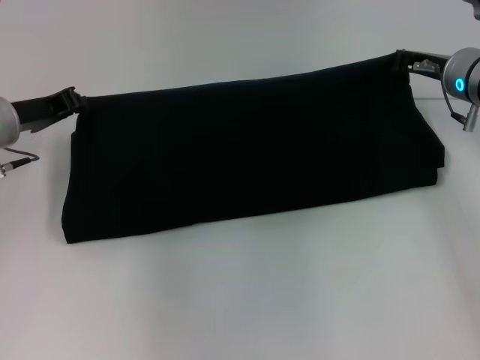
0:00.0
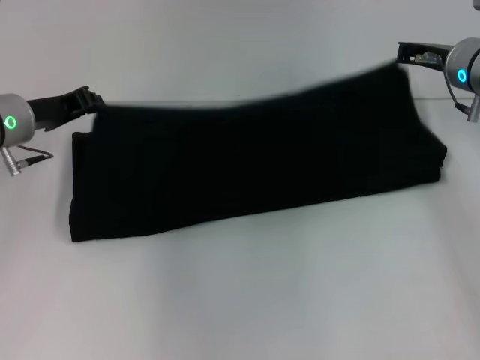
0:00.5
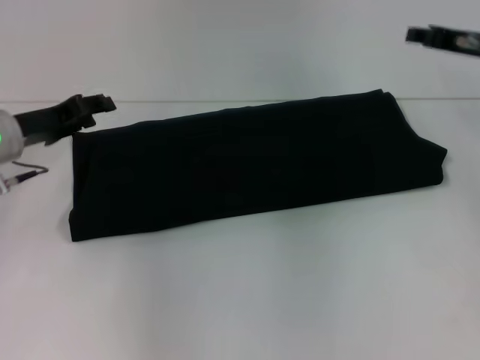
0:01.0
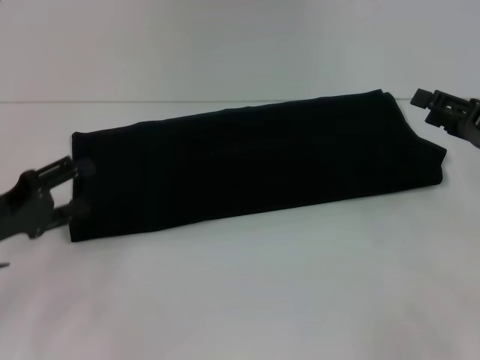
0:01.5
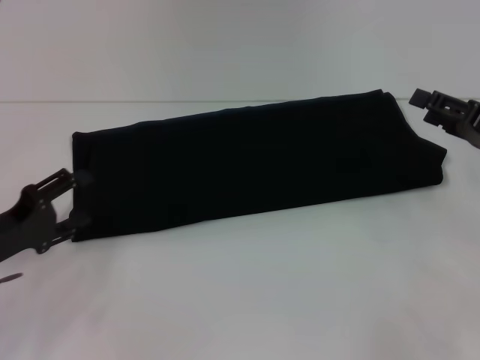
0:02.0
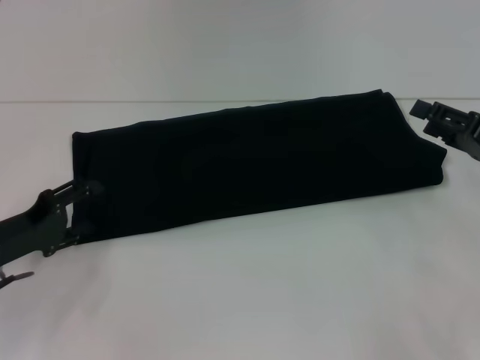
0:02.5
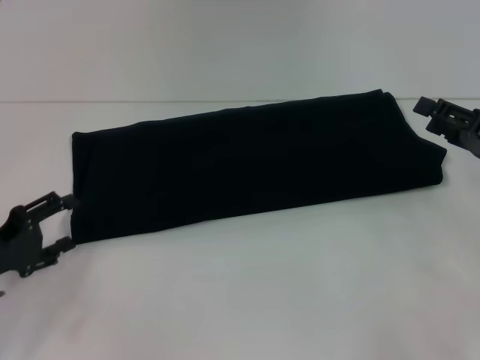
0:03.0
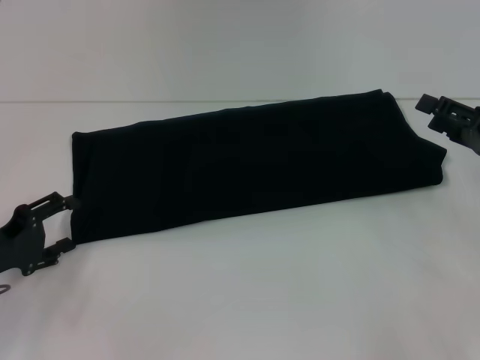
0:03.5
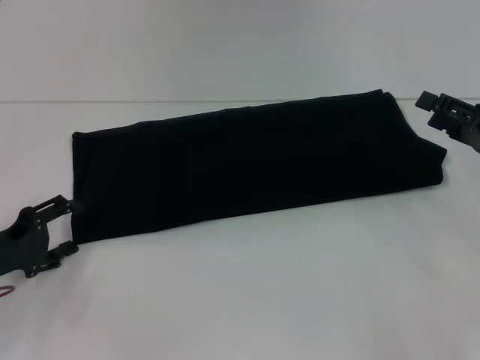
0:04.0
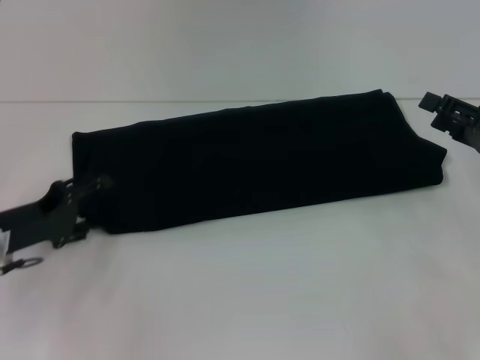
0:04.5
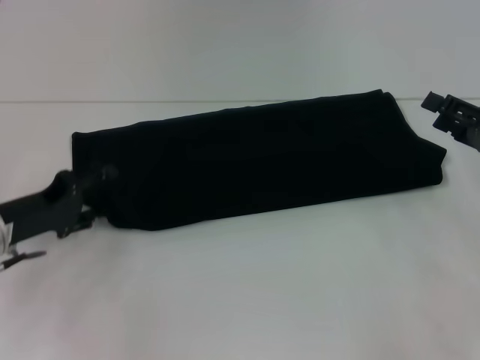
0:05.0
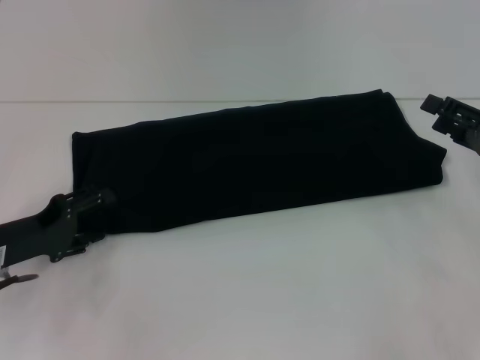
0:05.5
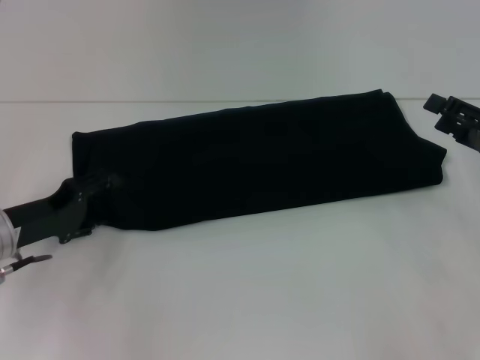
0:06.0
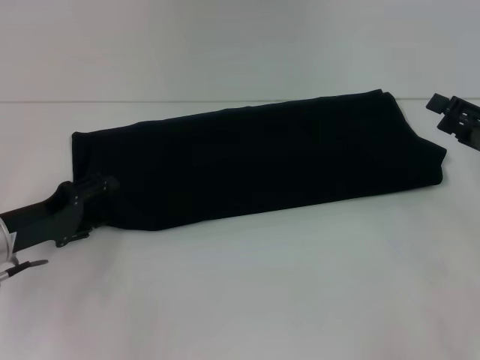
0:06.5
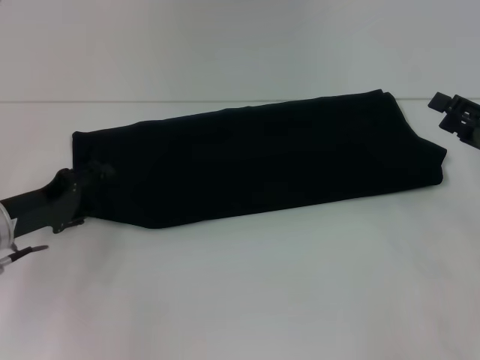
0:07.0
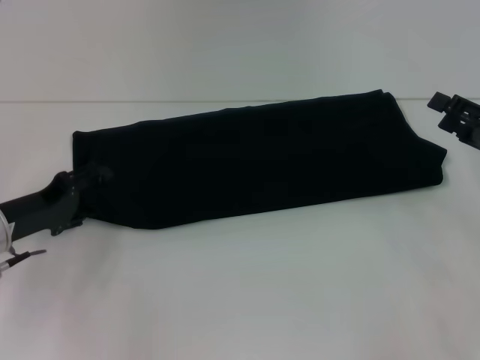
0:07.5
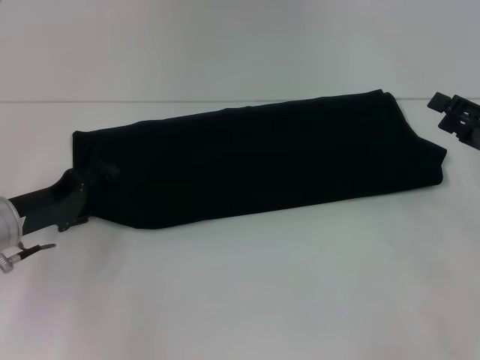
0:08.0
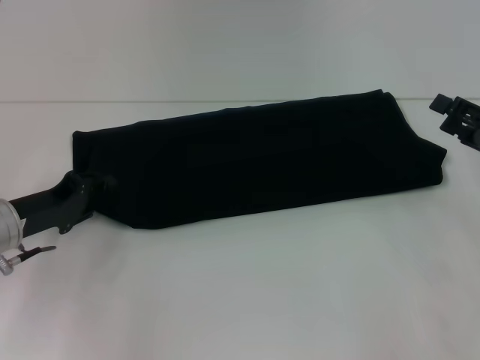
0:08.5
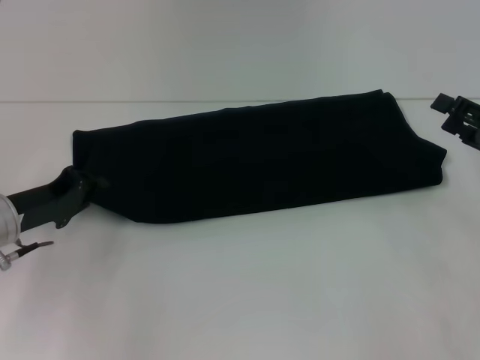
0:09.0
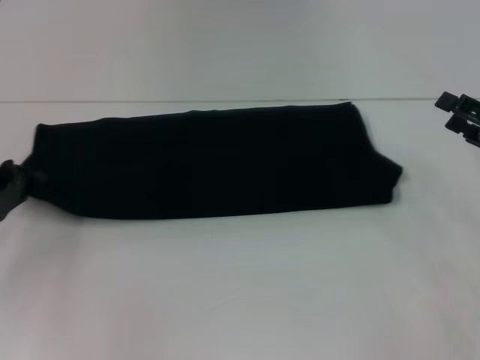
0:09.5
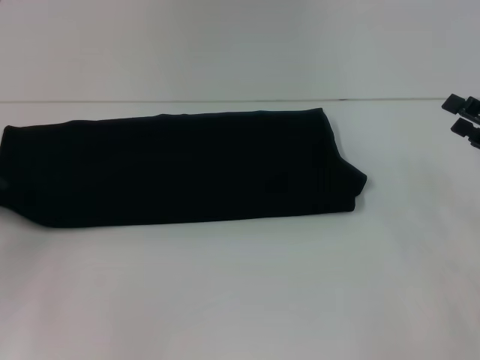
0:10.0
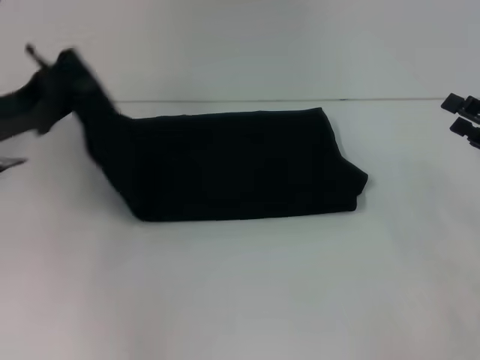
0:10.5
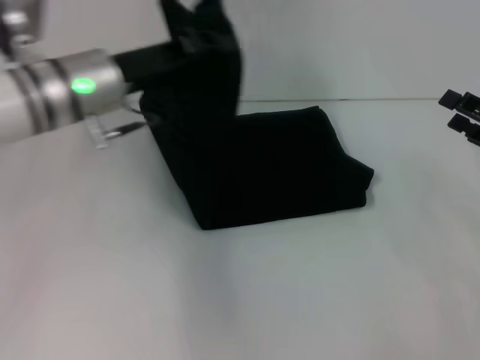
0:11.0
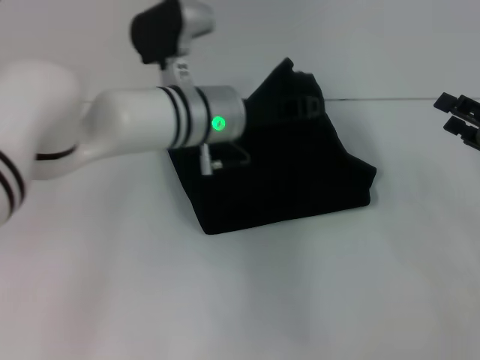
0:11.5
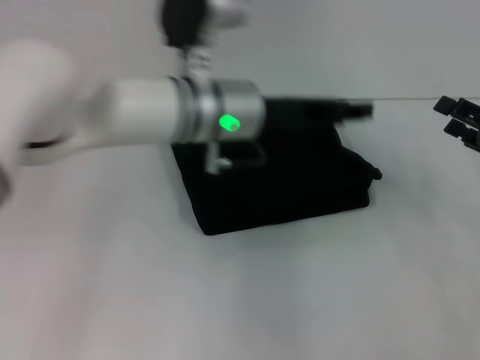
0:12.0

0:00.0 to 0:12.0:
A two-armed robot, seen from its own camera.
Step, 0:00.0 to 0:12.0: Fold the clothes with your left hand.
0:00.0 to 0:02.0: The right gripper is displaced backward and to the right by about 15 cm, and opens its fingers. Meanwhile the left gripper heads backward and downward, covering approximately 15 cm, and opens its fingers.
0:02.0 to 0:04.0: The grippers stay close to where they were, moving slightly.
0:04.0 to 0:06.0: The left gripper changes place by roughly 5 cm.
0:06.0 to 0:08.0: The grippers stay close to where they were, moving slightly.
0:08.0 to 0:10.0: The left gripper goes approximately 10 cm to the left, and closes its fingers.
0:10.0 to 0:12.0: The left gripper heads to the right, covering roughly 35 cm.

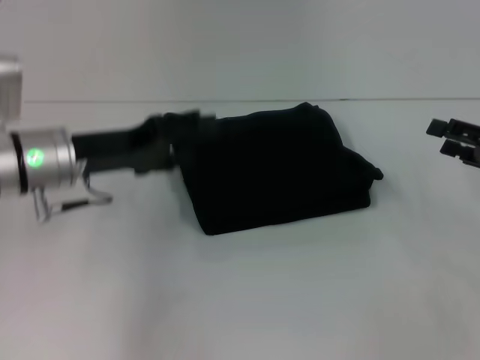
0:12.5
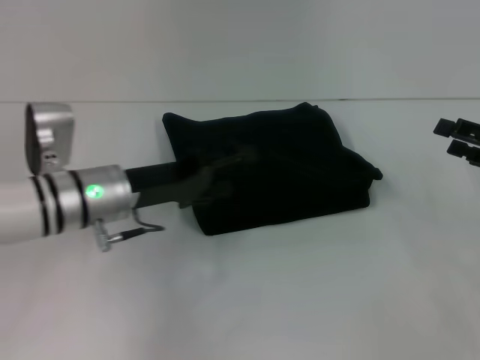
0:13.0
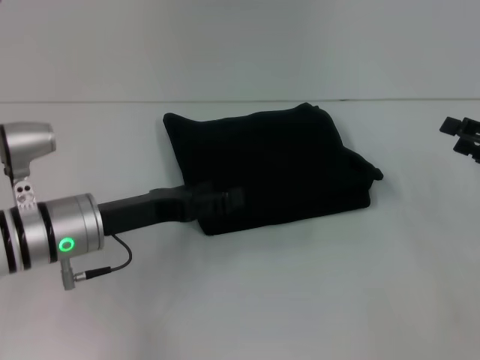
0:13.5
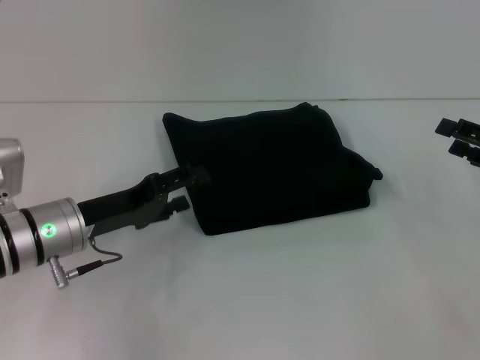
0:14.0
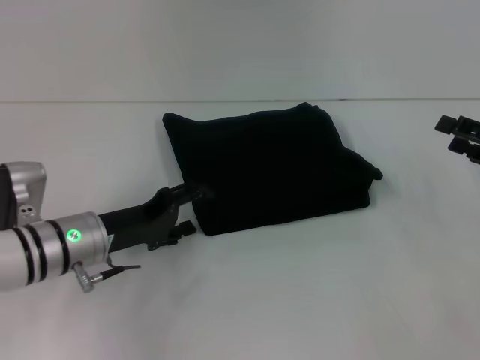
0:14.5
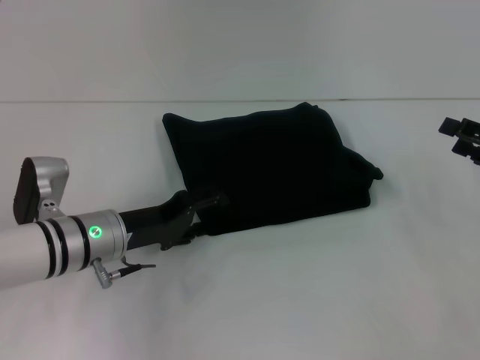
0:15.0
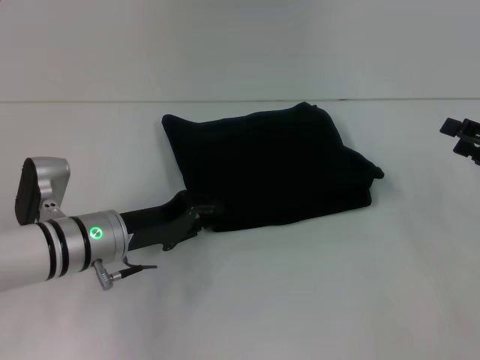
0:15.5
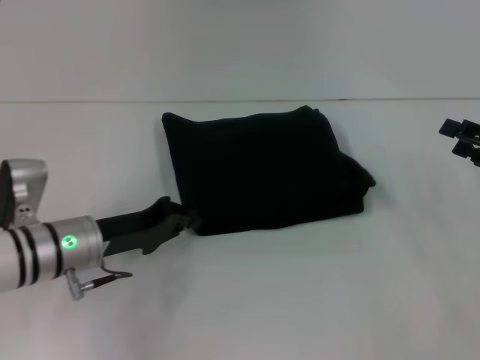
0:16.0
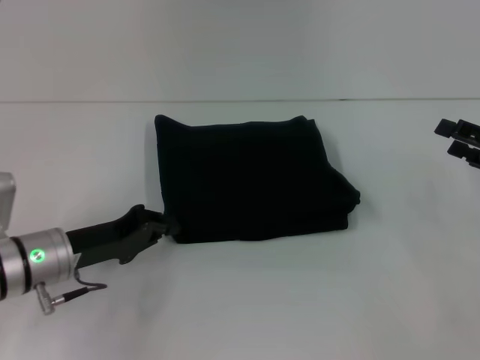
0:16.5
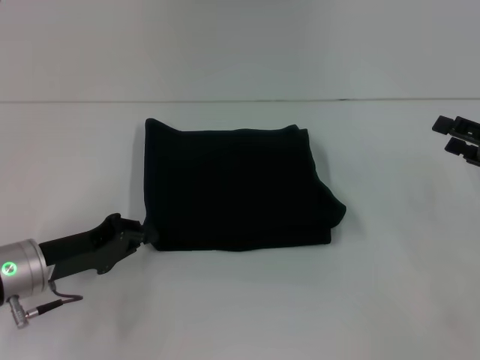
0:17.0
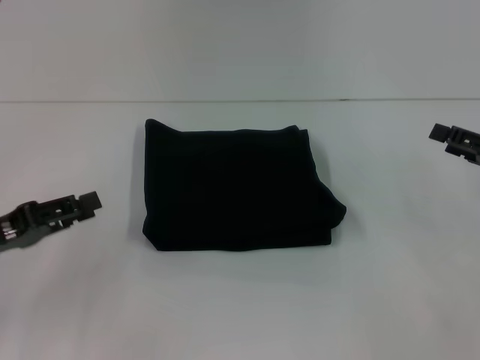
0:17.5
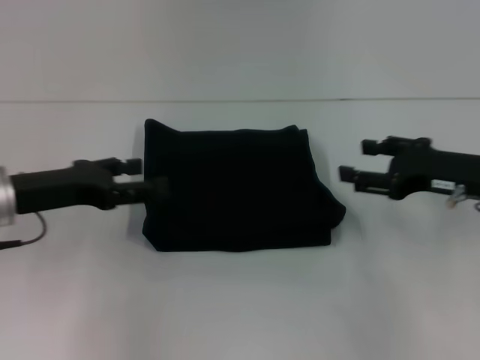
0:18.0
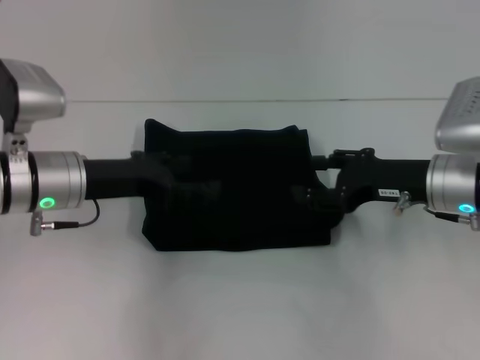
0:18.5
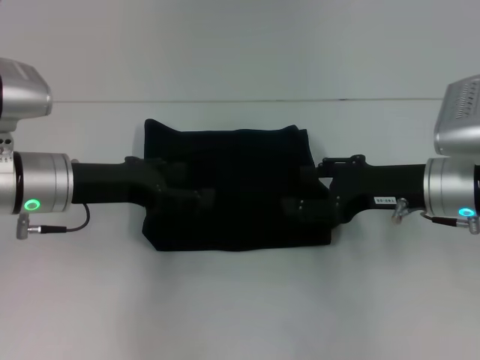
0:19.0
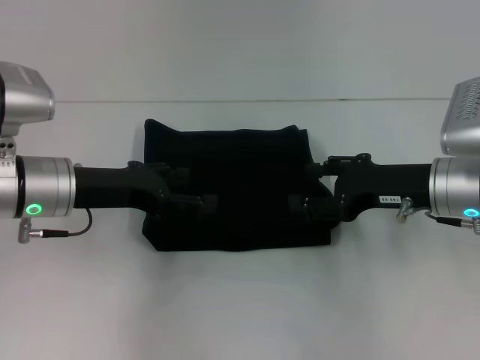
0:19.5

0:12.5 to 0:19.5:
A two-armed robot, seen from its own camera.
0:12.5 to 0:14.5: The left gripper moves downward, roughly 10 cm.
0:14.5 to 0:16.0: The left gripper closes.
0:16.0 to 0:17.5: The left gripper goes about 15 cm to the left and backward.
0:17.5 to 0:19.5: The left gripper shifts about 15 cm to the right and forward, and opens; the right gripper travels to the left by some 15 cm.

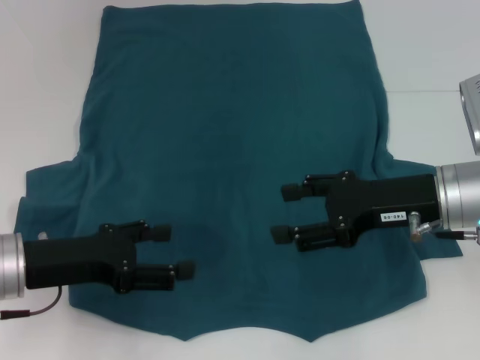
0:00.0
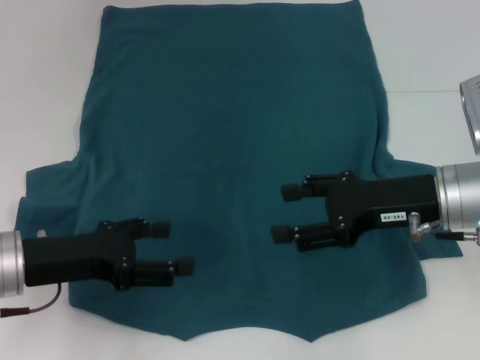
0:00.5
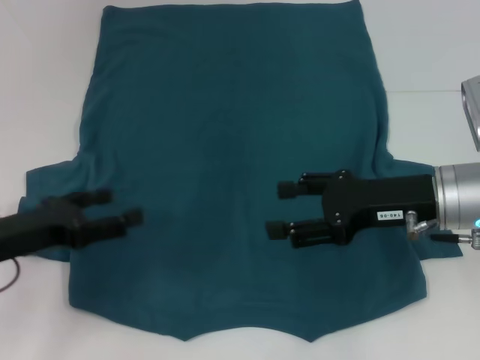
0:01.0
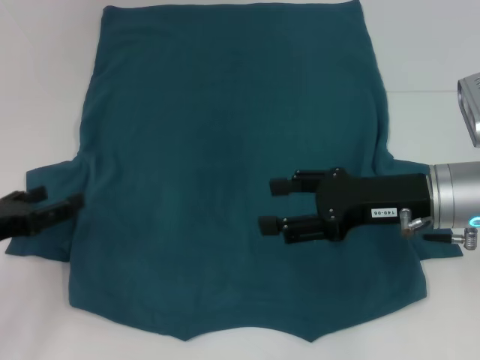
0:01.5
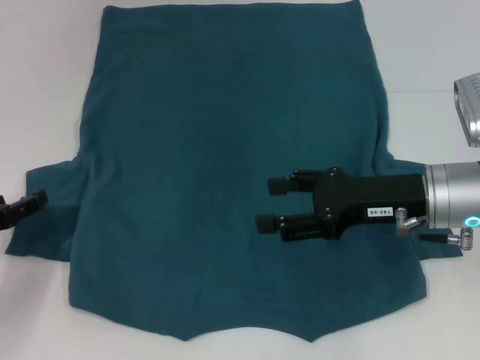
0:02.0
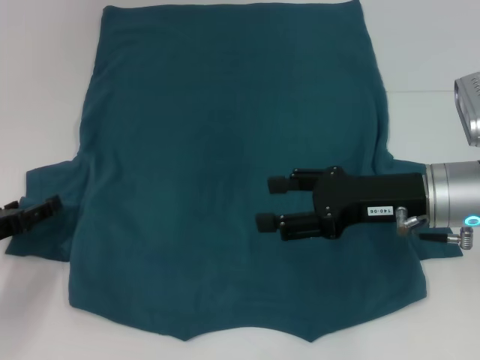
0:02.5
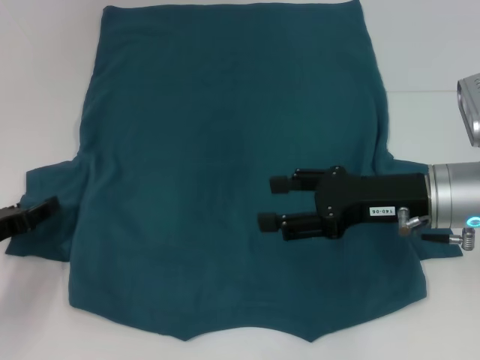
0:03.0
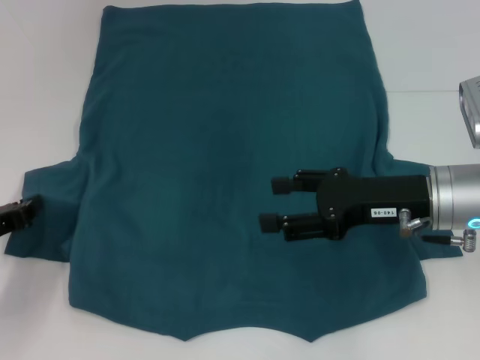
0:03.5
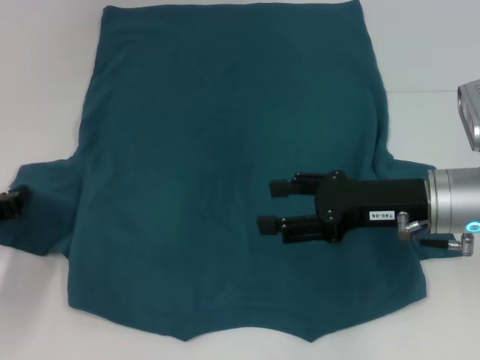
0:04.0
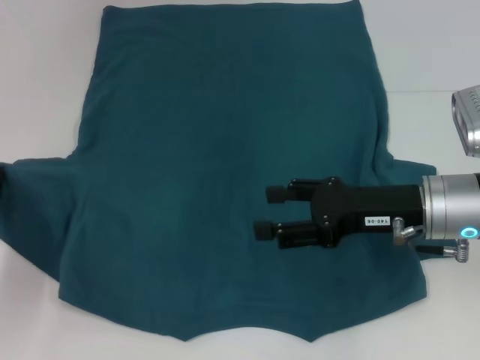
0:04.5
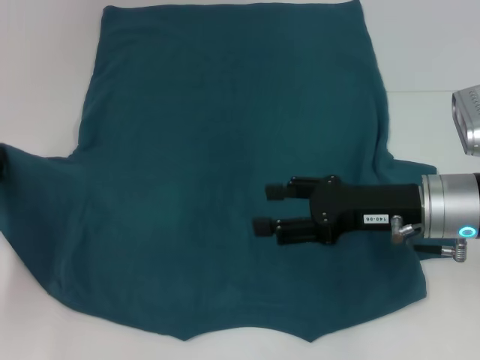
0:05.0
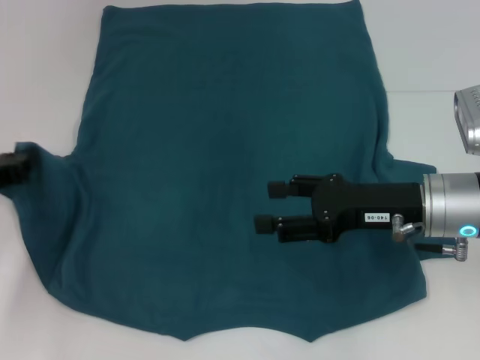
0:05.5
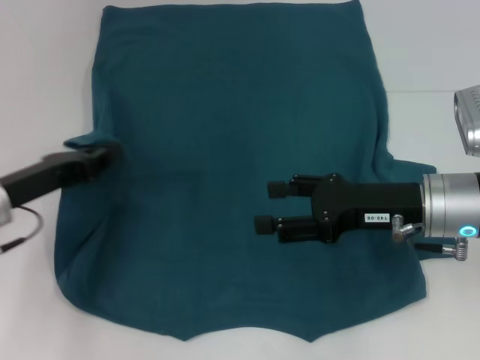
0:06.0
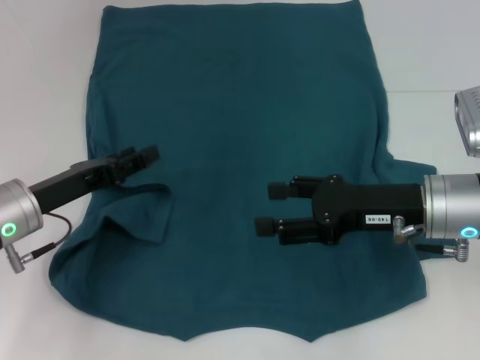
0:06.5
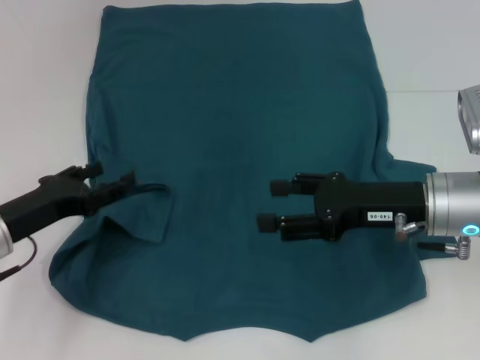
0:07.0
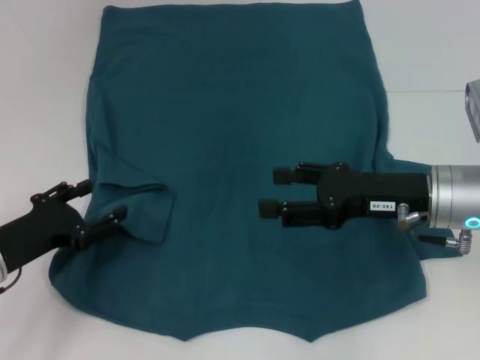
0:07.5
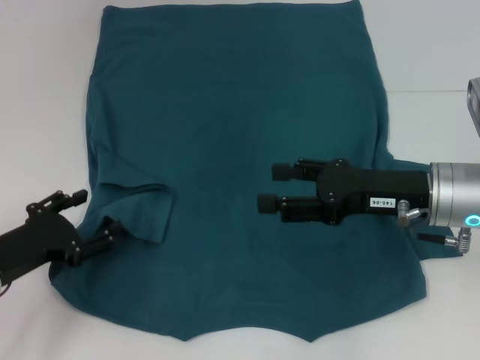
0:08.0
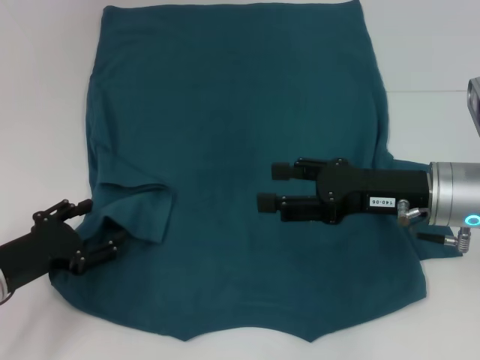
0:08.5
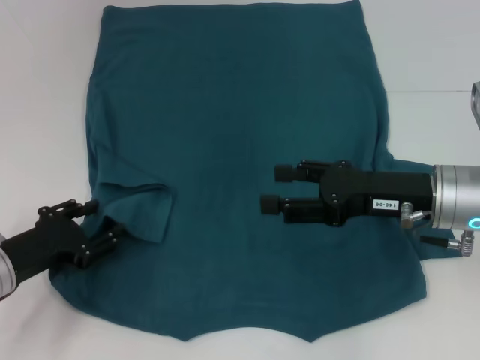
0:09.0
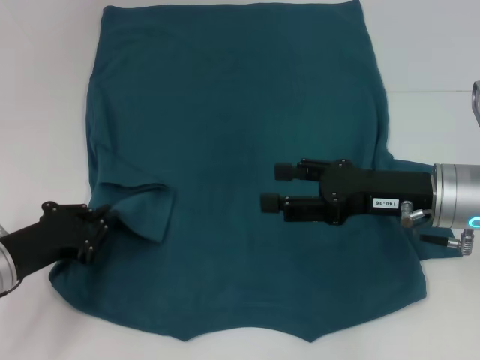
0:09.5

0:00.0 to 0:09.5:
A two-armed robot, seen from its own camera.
0:00.0 to 0:02.0: The left gripper travels to the left by some 10 cm.
0:02.0 to 0:04.0: The left gripper closes up.
0:04.0 to 0:05.5: The grippers stay close to where they were, moving slightly.
0:05.5 to 0:07.5: The left gripper moves some 5 cm, and opens up.
0:07.5 to 0:09.5: The left gripper closes its fingers.
